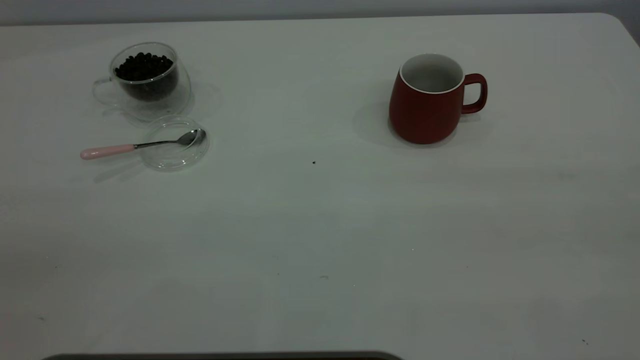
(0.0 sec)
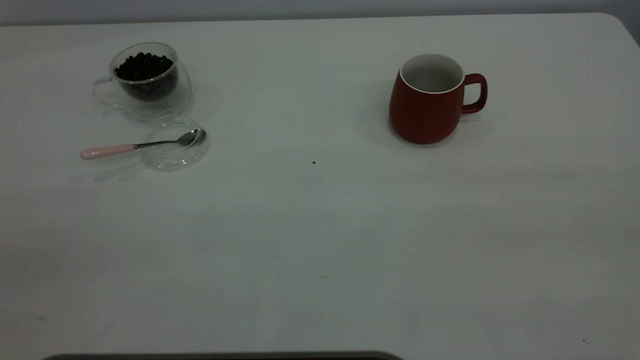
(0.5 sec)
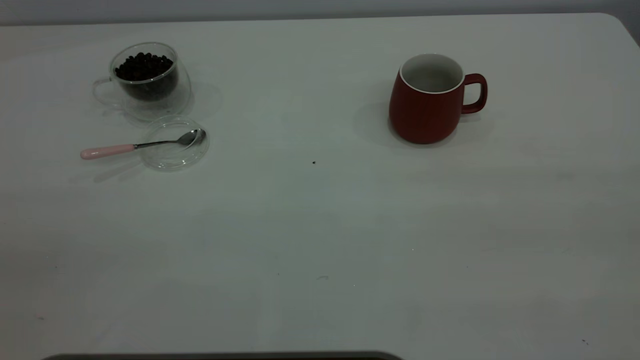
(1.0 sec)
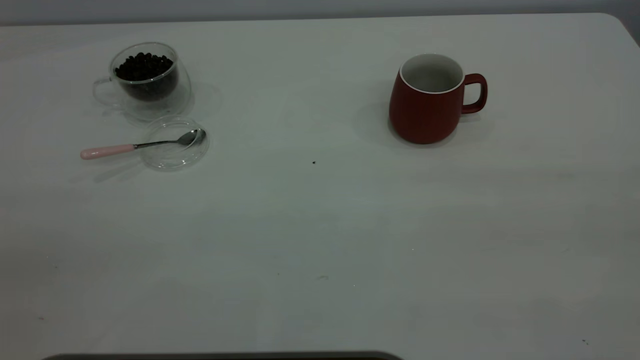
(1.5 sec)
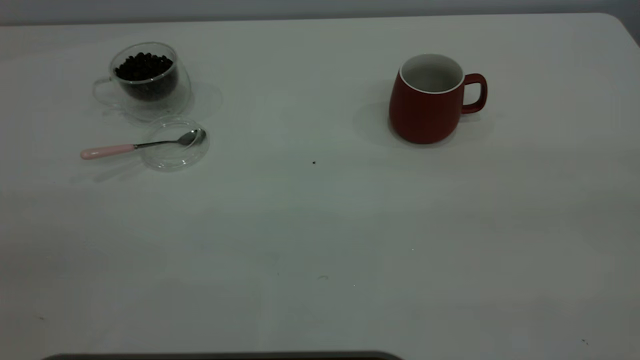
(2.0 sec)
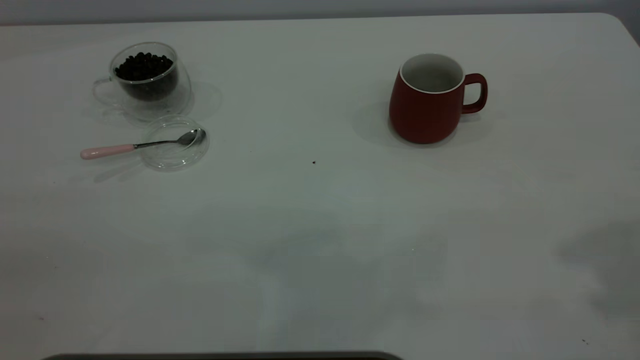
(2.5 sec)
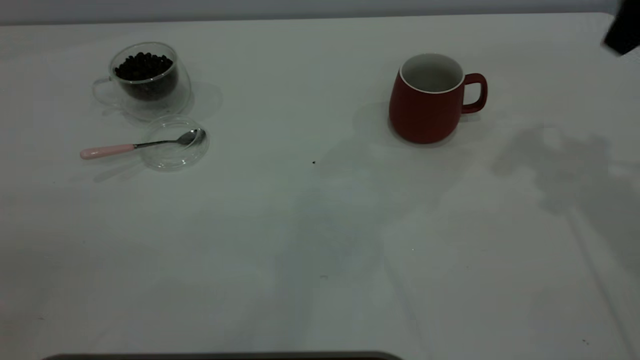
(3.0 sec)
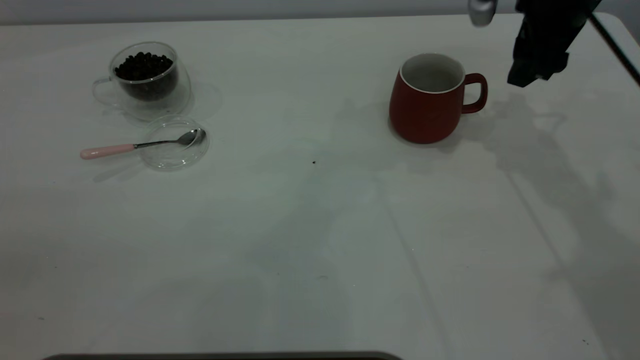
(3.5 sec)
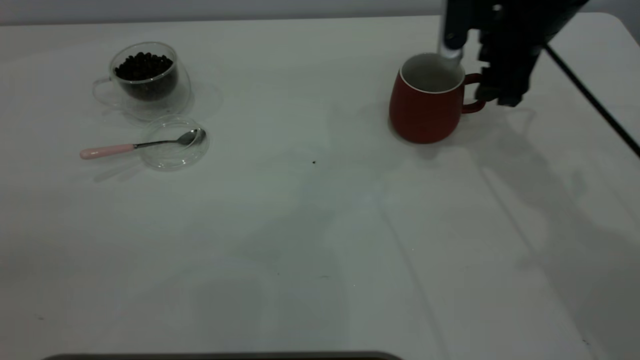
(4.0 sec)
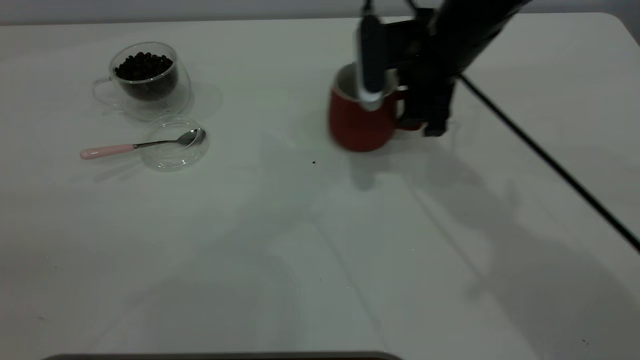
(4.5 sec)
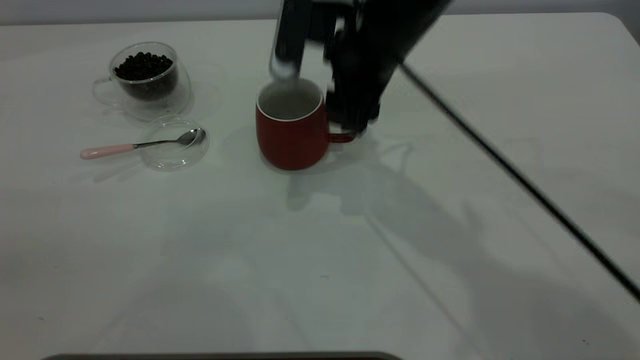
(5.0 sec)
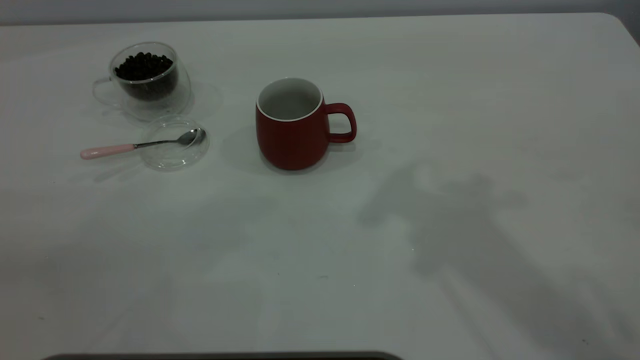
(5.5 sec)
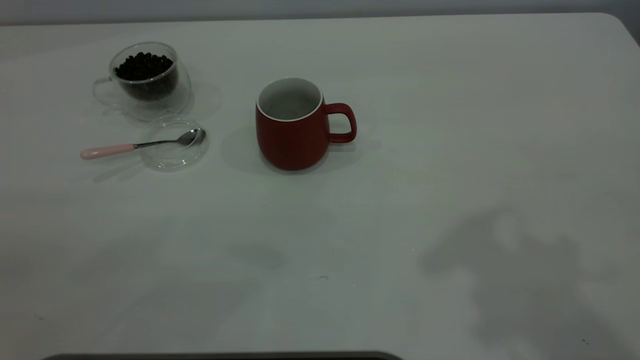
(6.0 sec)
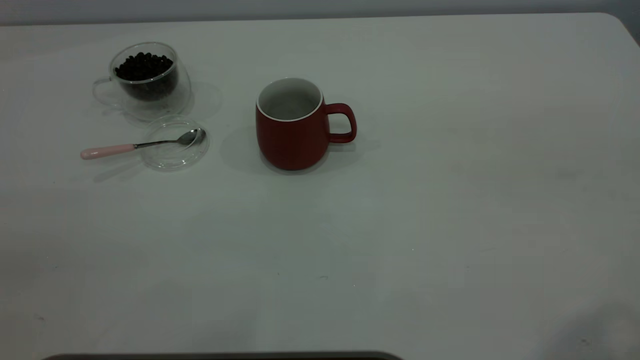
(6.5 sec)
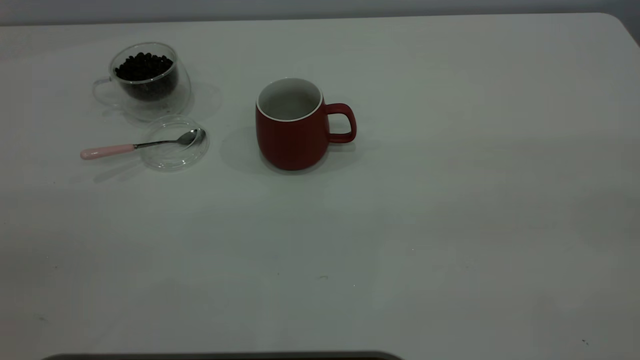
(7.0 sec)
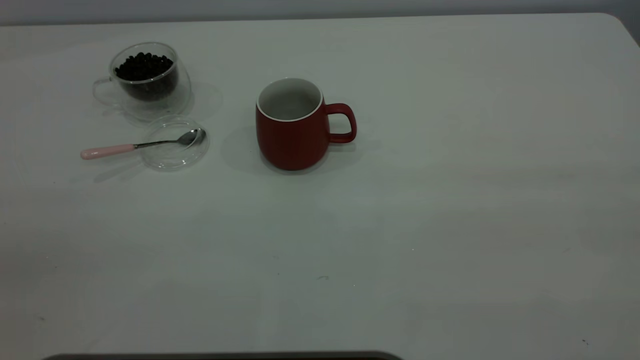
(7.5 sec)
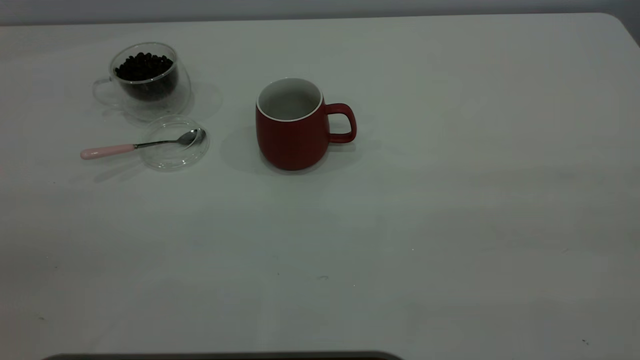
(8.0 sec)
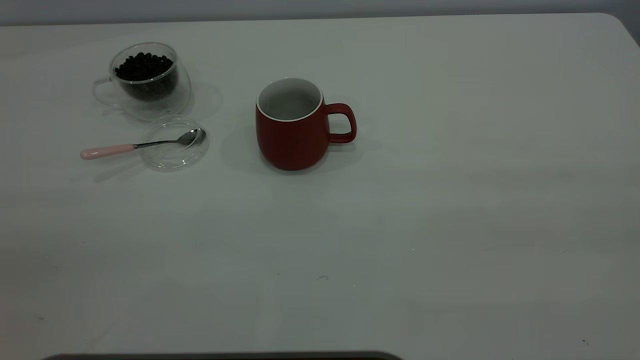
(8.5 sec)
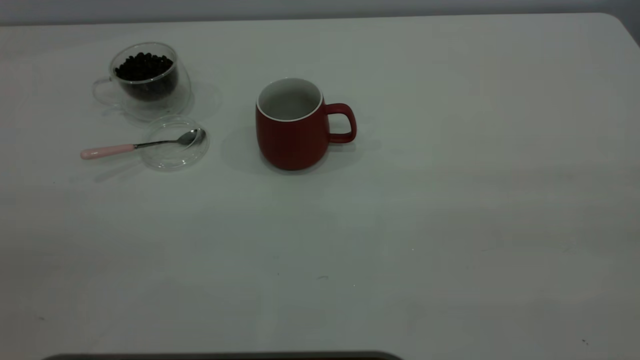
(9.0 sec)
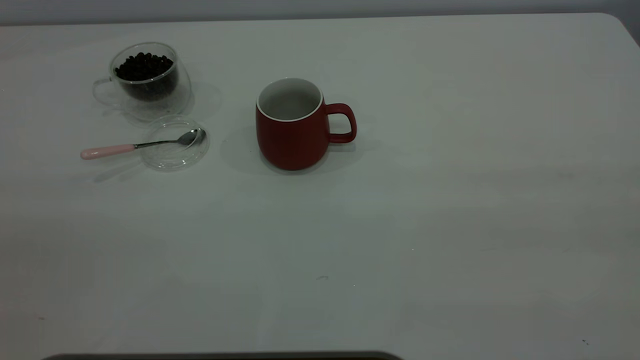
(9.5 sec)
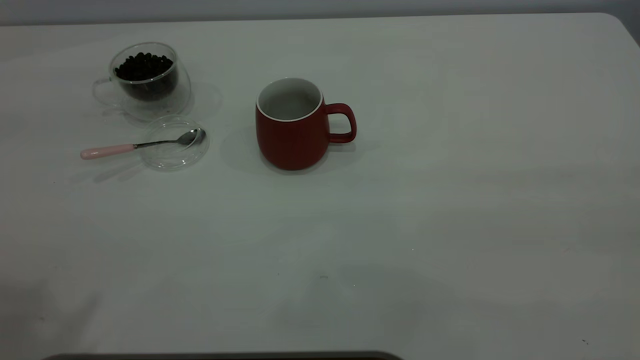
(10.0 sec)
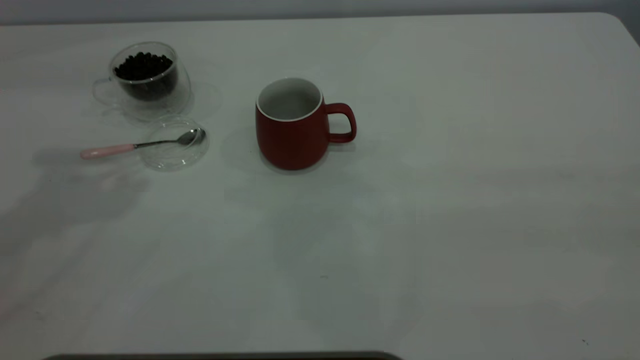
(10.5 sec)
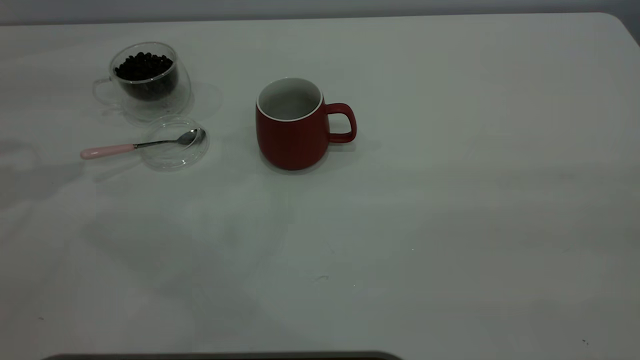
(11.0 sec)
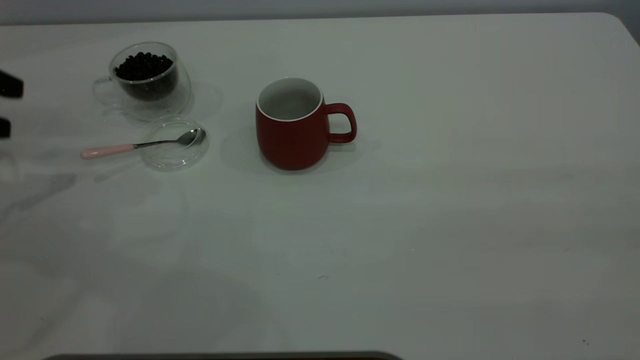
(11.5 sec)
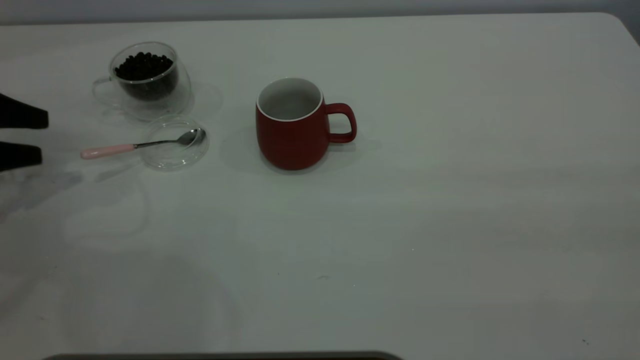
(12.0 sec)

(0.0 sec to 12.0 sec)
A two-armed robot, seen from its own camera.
Task of the whole recording: the right gripper place the red cup in the center of the table, the left gripper take the pink spoon from the cup lid and scoop out the coffee beans from the coffee cup and put them into the red cup, the left gripper put the spoon back into the cup lid.
Step, 0.0 sec - 5.0 sec: Move the cup to the center of view.
2.0 sec - 4.0 sec: The right gripper moves forward and downward, about 50 cm.
4.0 sec - 6.0 sec: The right gripper travels upward and backward by about 35 cm.
10.0 sec - 12.0 sec: The left gripper shifts approximately 40 cm downward, forward and to the left.

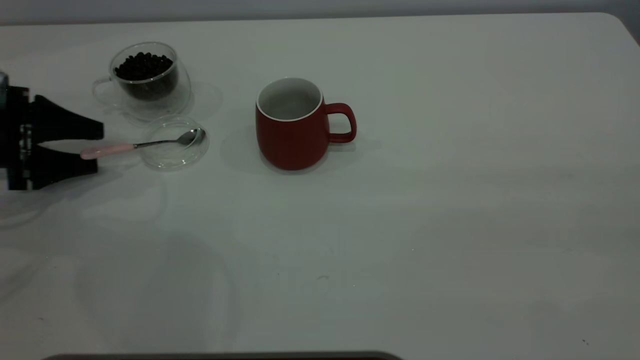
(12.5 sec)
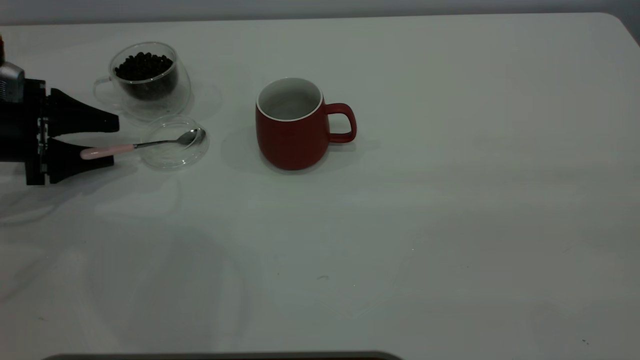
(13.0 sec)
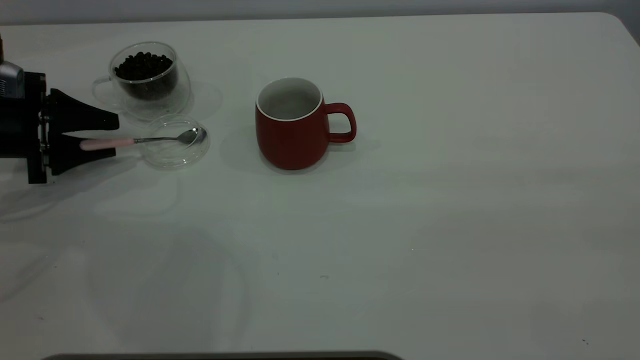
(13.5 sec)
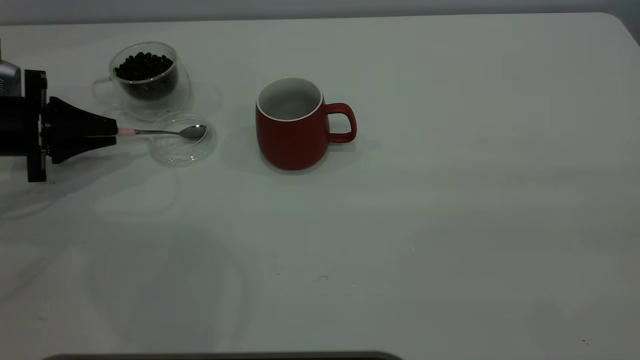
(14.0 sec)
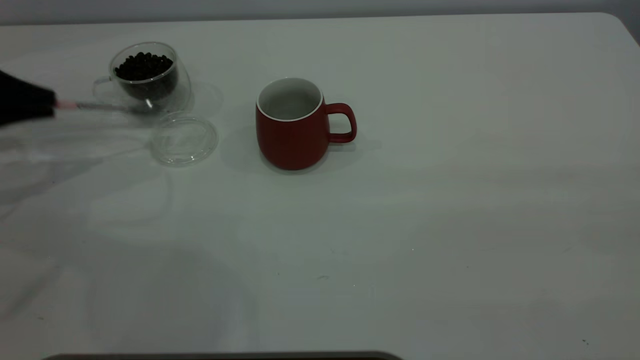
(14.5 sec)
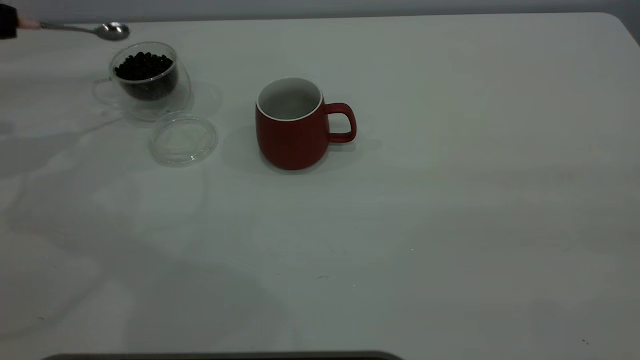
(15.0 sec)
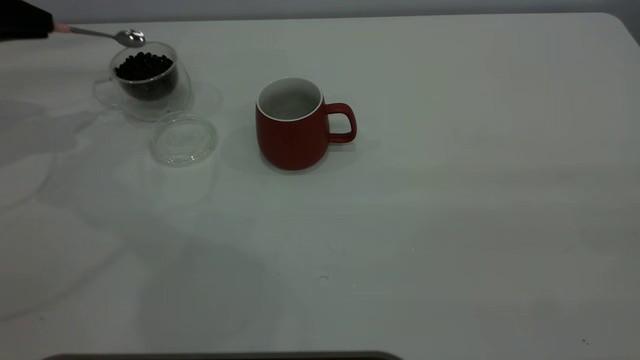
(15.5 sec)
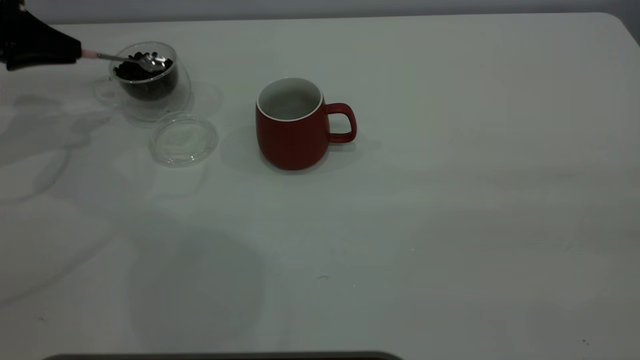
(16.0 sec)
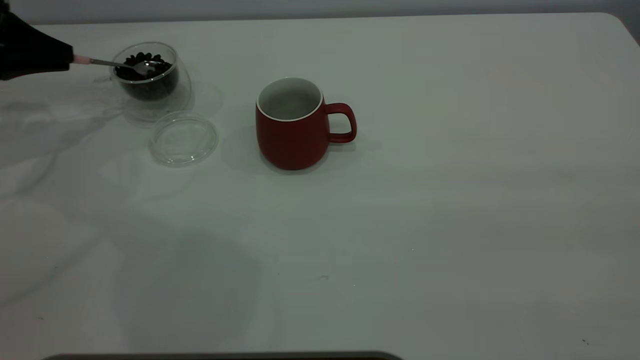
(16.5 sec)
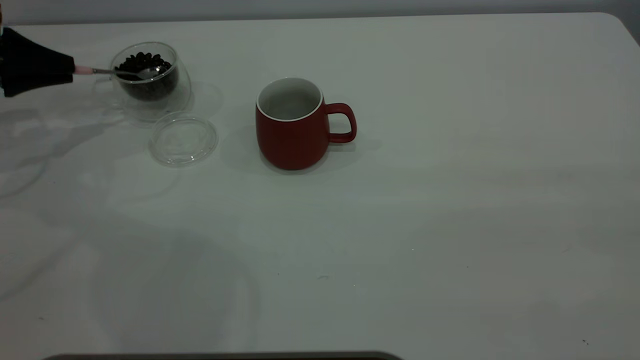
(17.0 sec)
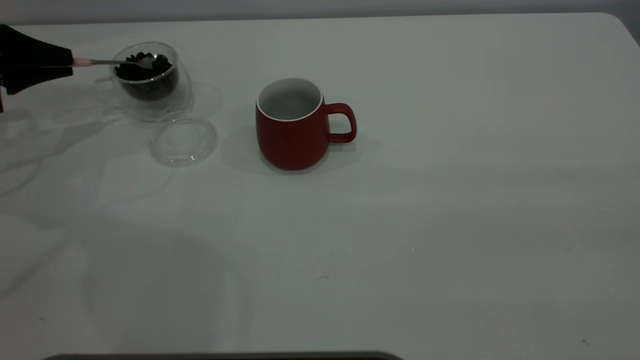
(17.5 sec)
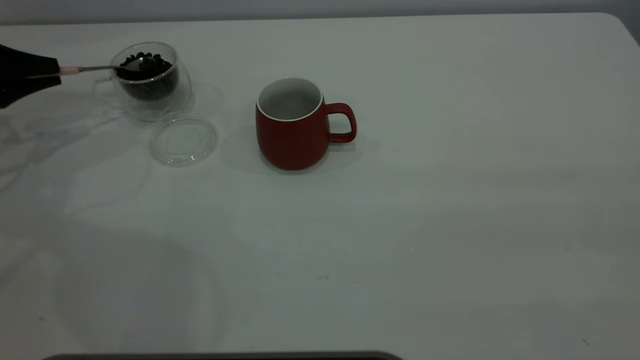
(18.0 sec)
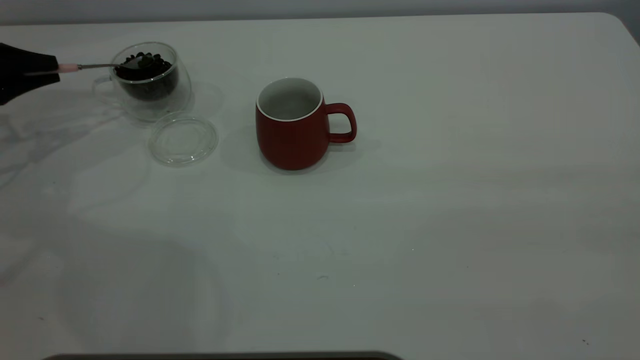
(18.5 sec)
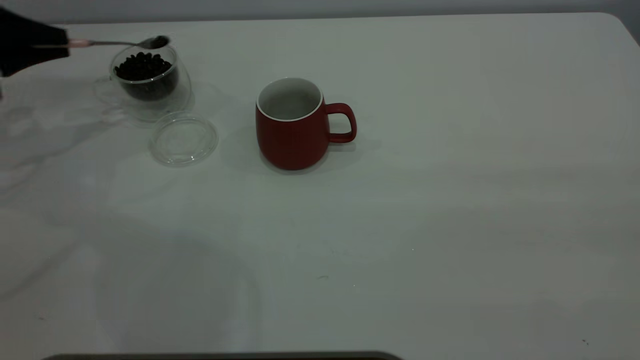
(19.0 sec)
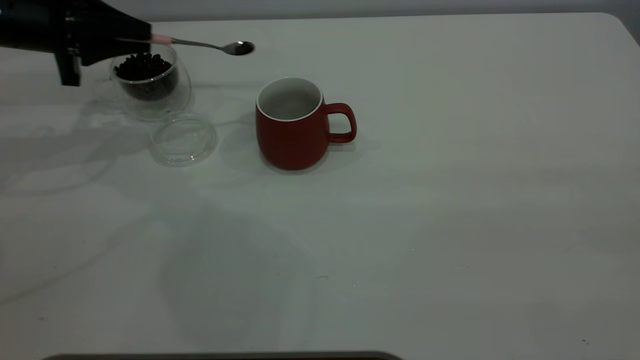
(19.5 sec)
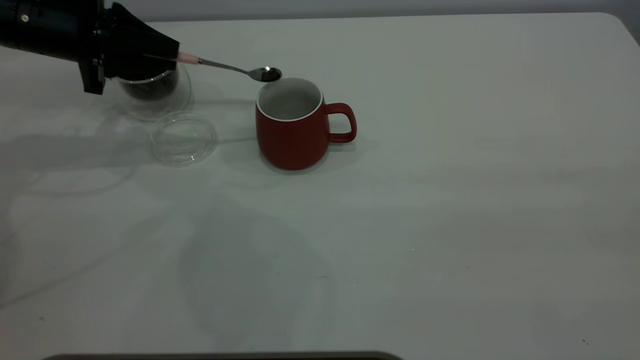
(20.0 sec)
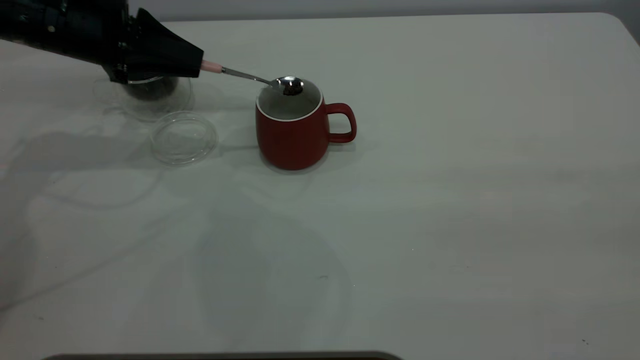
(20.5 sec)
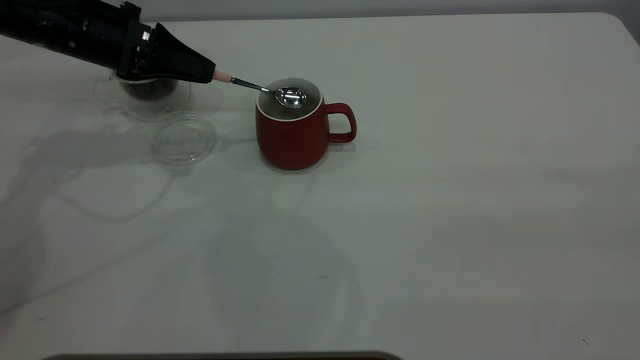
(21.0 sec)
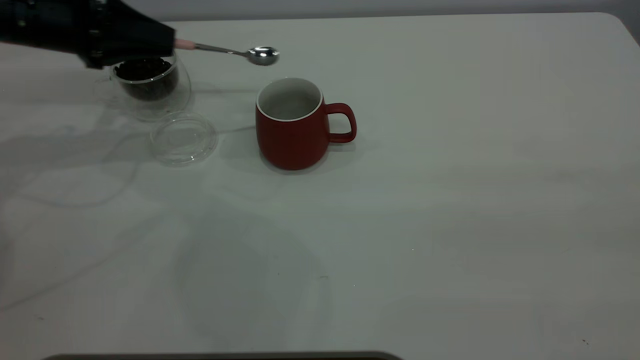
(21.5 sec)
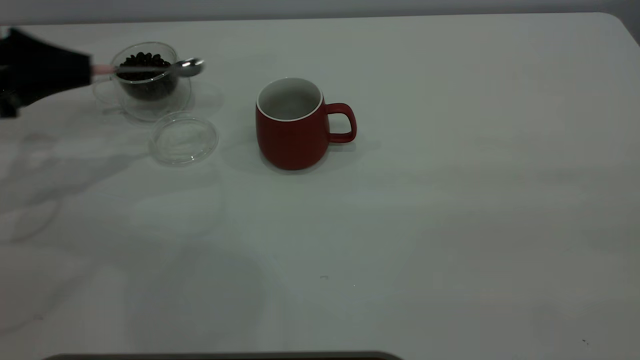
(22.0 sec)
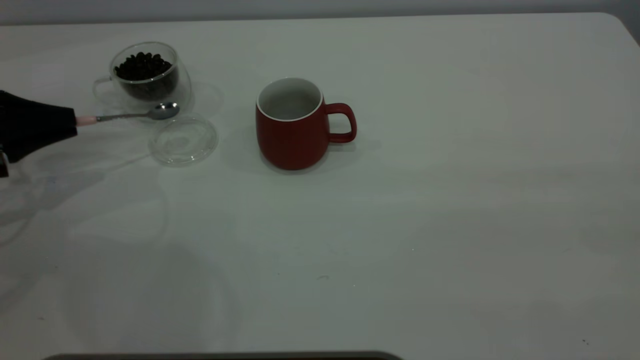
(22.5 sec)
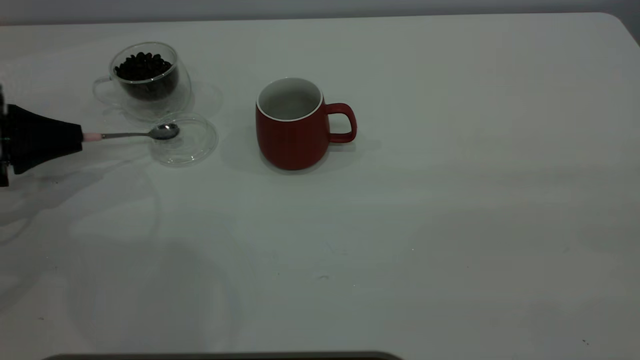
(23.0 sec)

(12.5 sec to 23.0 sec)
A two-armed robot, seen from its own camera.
Task of the whole recording: the right gripper place the red cup in the center of the table, the left gripper take the pink spoon from the cup lid and scoop out the coffee beans from the coffee cup and put them into the red cup, the left gripper put the spoon back into the cup lid.
Step, 12.5 sec - 14.5 sec: Pick up the spoon.
Step, 15.0 sec - 21.5 sec: Scoop a spoonful of beans into the cup.
12.5 sec - 14.5 sec: The left gripper moves upward, about 5 cm, and closes up.
14.5 sec - 16.5 sec: The left gripper shifts some 5 cm forward.
19.0 sec - 21.0 sec: The left gripper heads to the right, covering roughly 15 cm.
21.0 sec - 23.0 sec: The left gripper is displaced to the left, backward and downward by approximately 20 cm.
